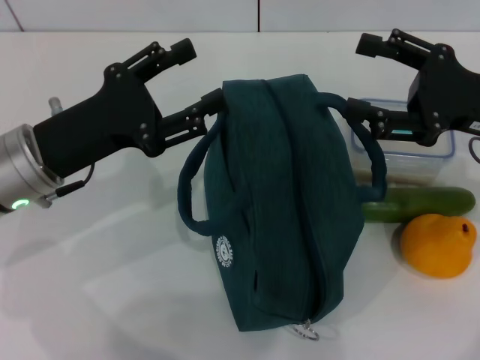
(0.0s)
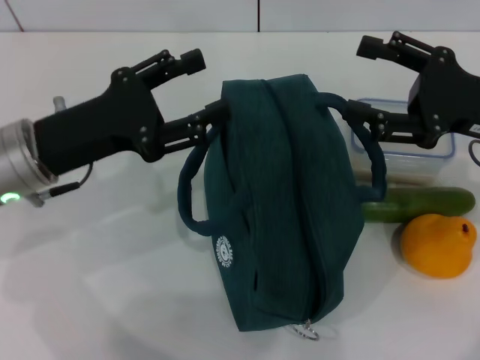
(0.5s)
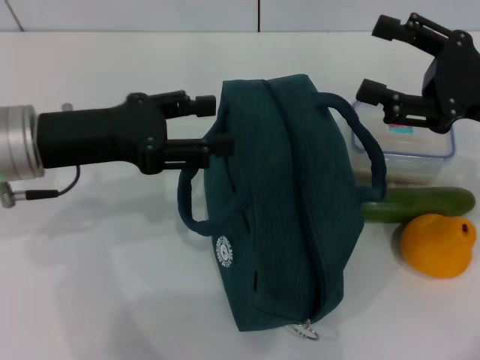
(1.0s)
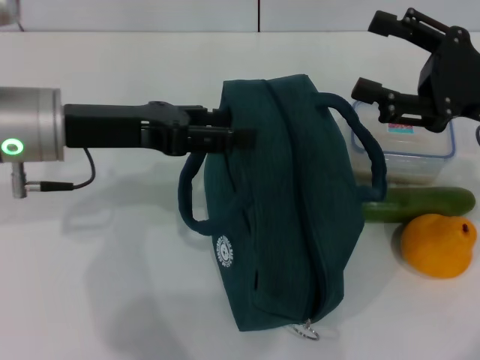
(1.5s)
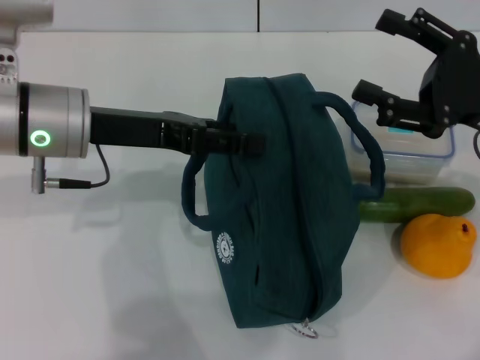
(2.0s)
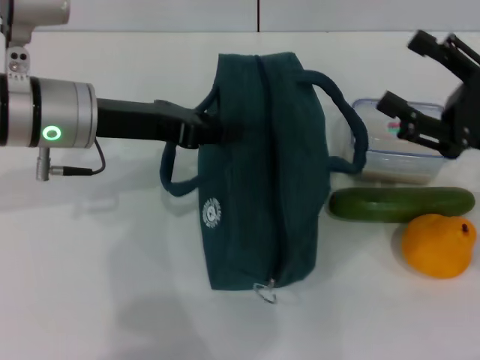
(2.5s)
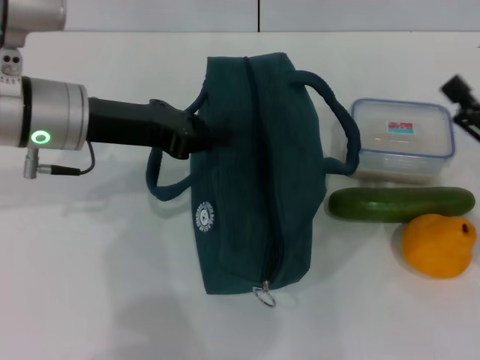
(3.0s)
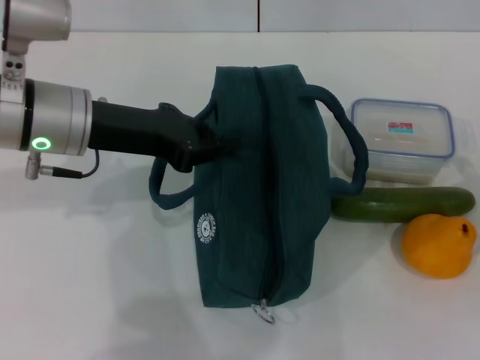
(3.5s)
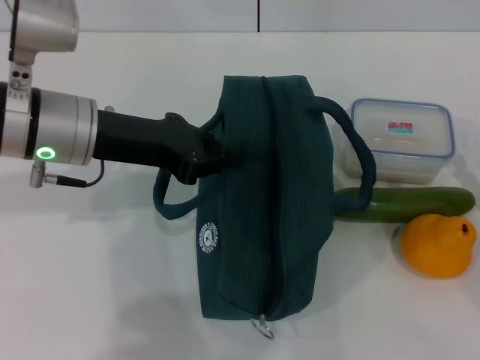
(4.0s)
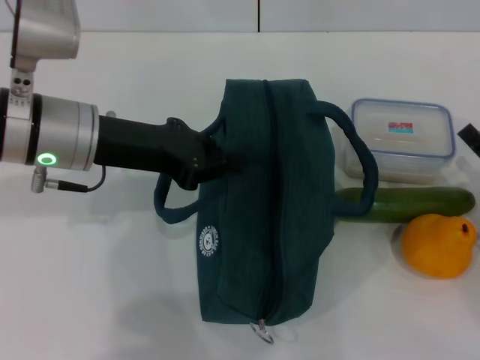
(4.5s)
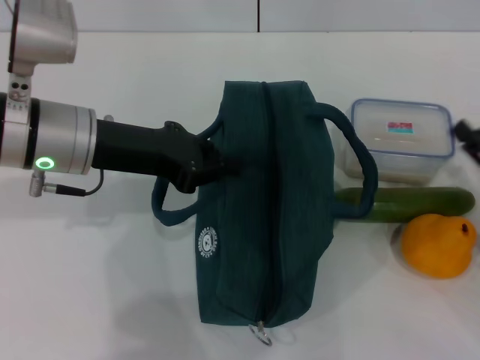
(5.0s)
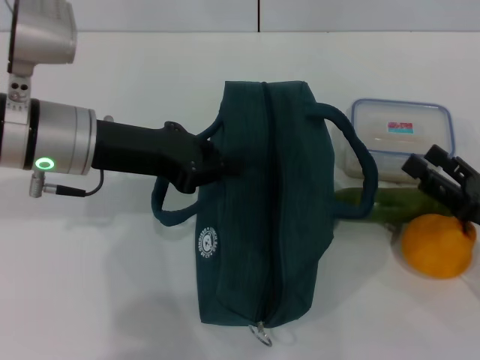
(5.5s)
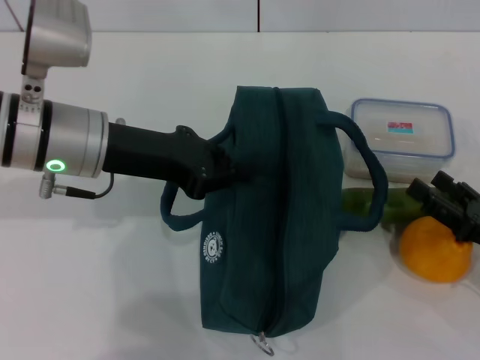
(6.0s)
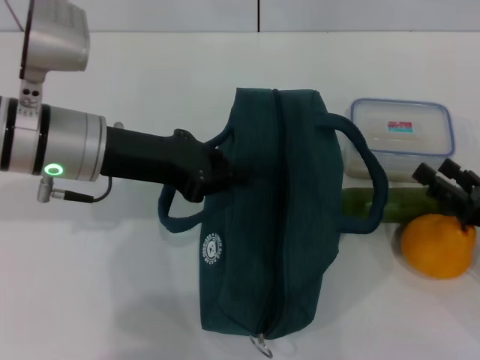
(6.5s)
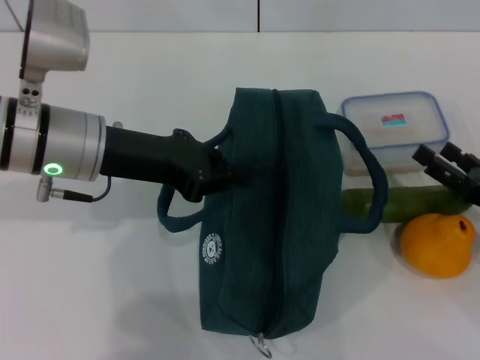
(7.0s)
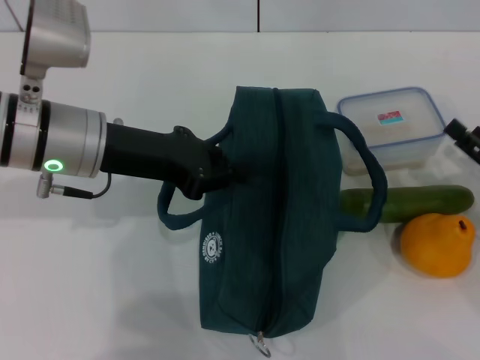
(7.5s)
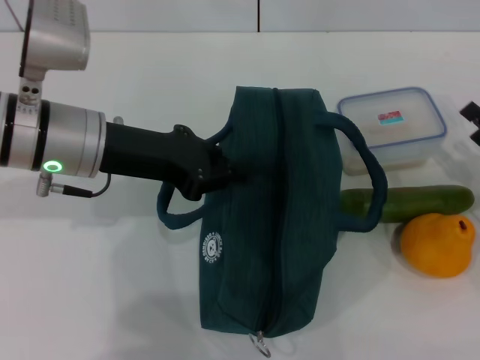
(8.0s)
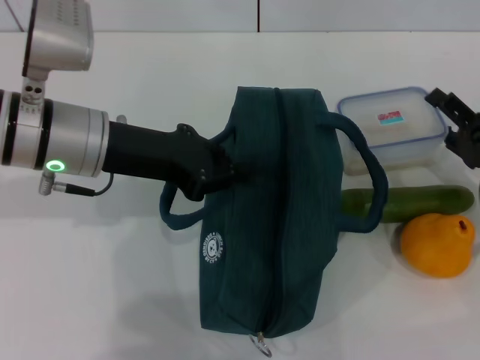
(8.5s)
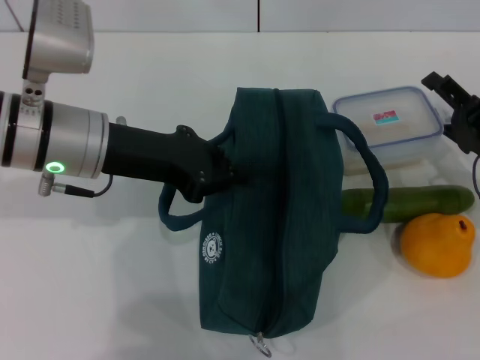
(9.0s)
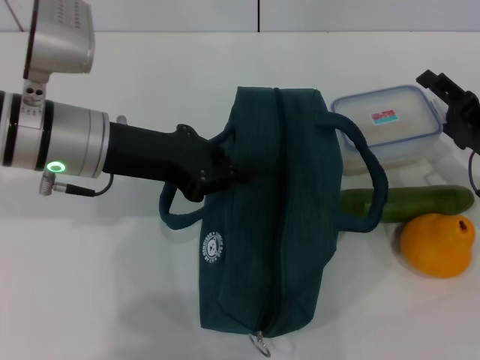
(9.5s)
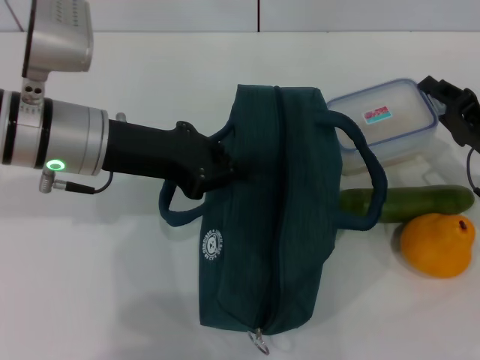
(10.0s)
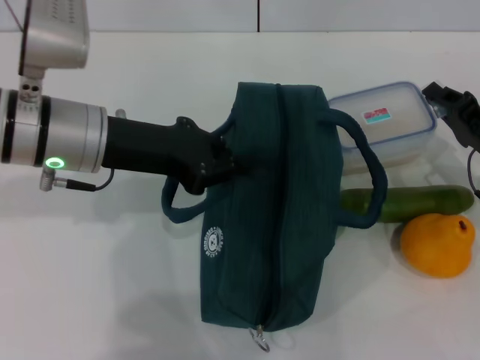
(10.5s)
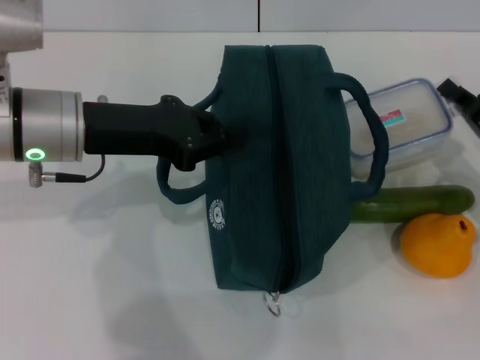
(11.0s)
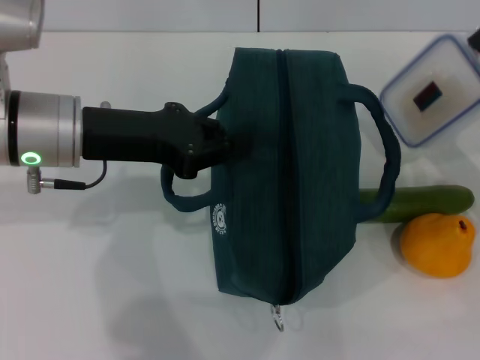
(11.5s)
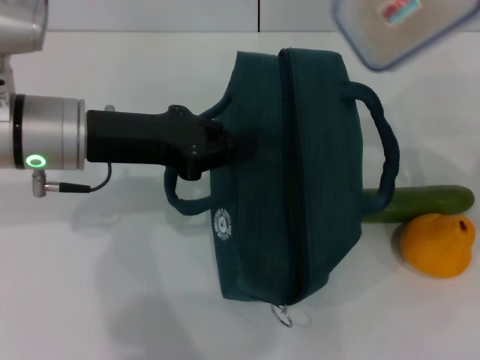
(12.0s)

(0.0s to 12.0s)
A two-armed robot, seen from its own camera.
Step, 0.0s - 2.5s: Hold the lunch bag with your left hand.
Step, 3.0s - 10.5s: Pick up the lunch box with your right hand.
0.0s - 2.0s: The left gripper heads upward, covering roughly 5 cm.
2.0s - 4.0s: The left gripper closes. The right gripper goes approximately 15 cm downward, backward and to the right.
6.0s - 8.0s: The right gripper is displaced forward by roughly 5 cm.
8.0s - 10.0s: The right gripper changes place by about 5 cm, and closes up.
10.0s - 12.0s: The right gripper travels upward by about 10 cm, and closes.

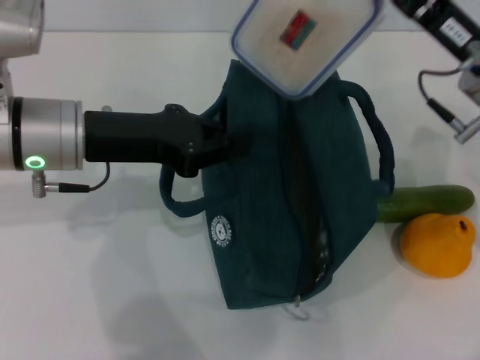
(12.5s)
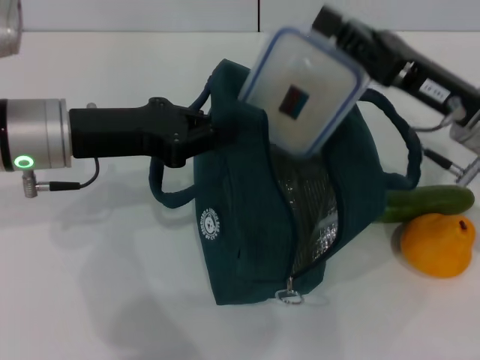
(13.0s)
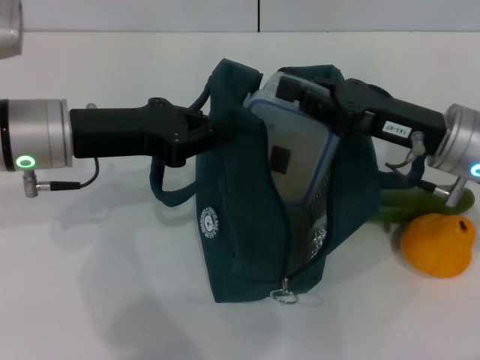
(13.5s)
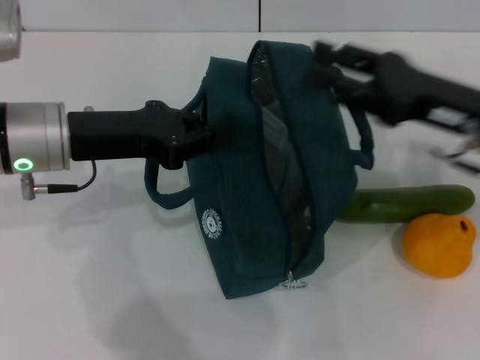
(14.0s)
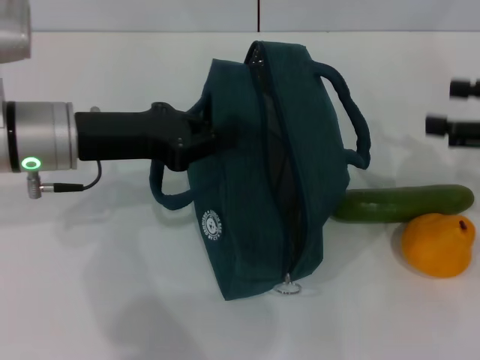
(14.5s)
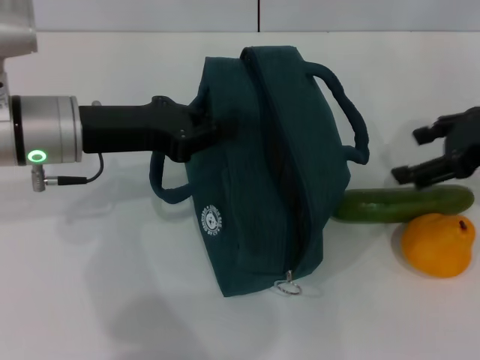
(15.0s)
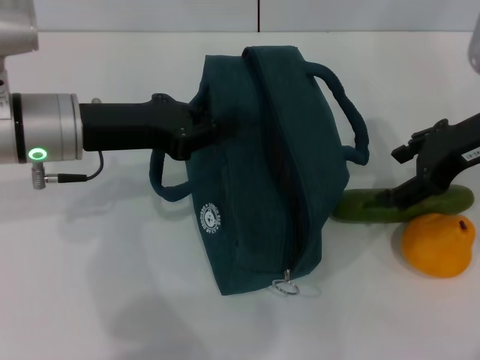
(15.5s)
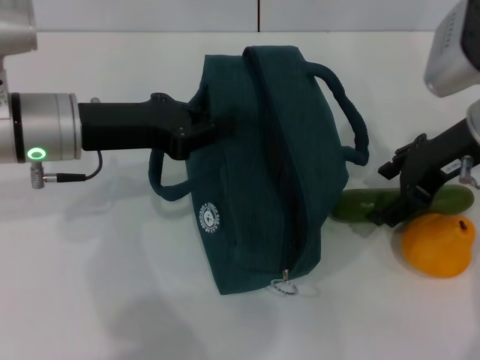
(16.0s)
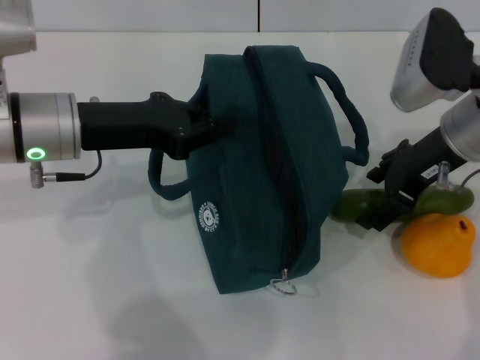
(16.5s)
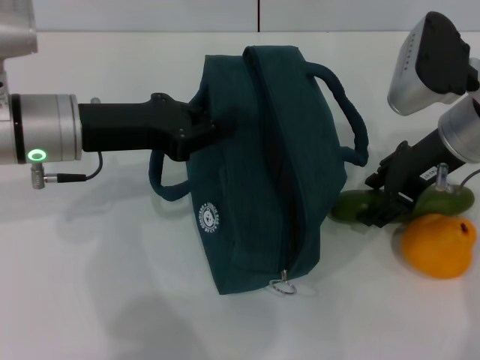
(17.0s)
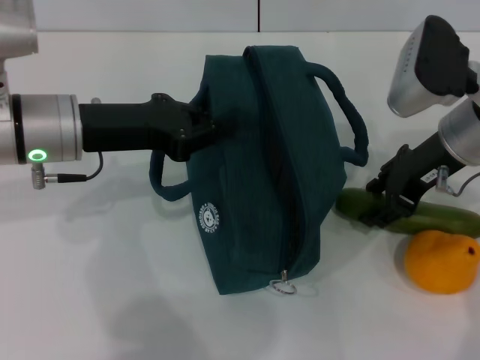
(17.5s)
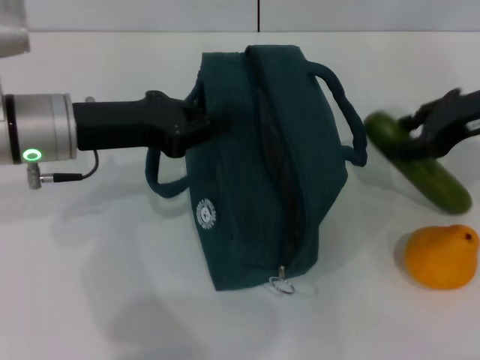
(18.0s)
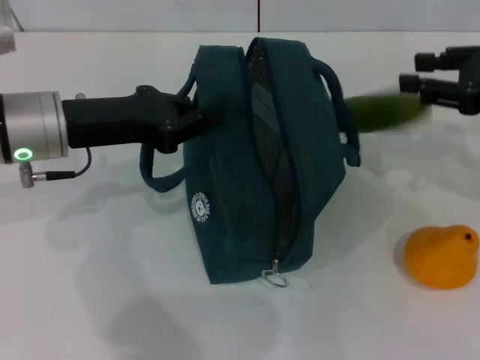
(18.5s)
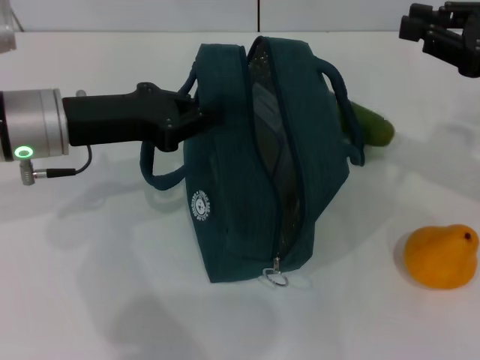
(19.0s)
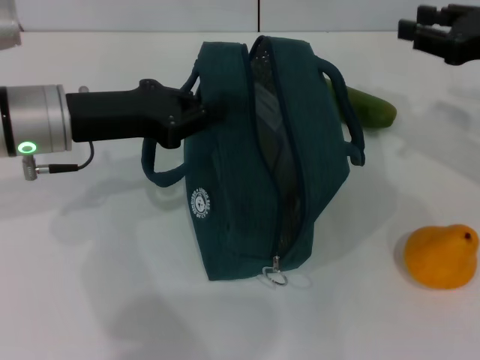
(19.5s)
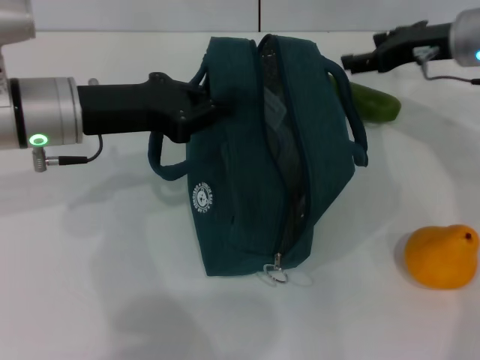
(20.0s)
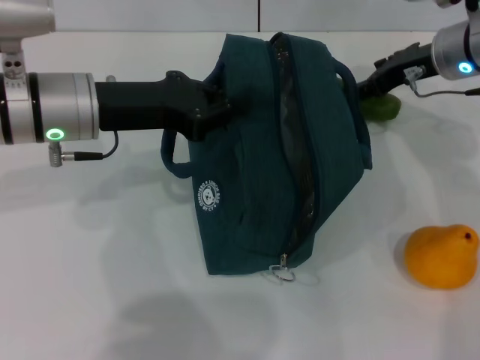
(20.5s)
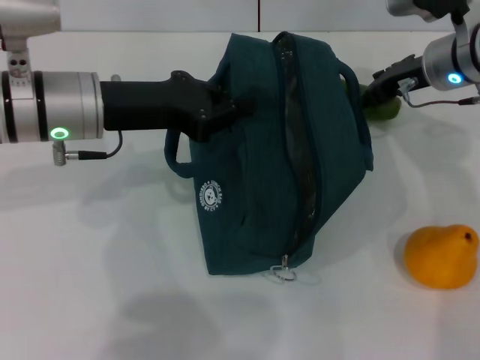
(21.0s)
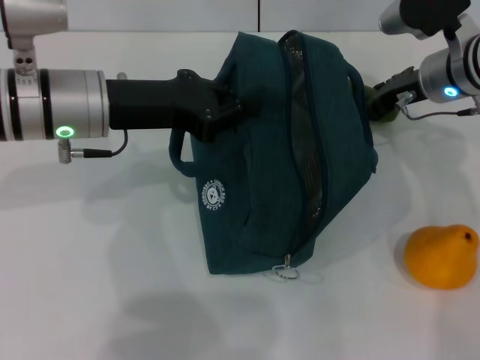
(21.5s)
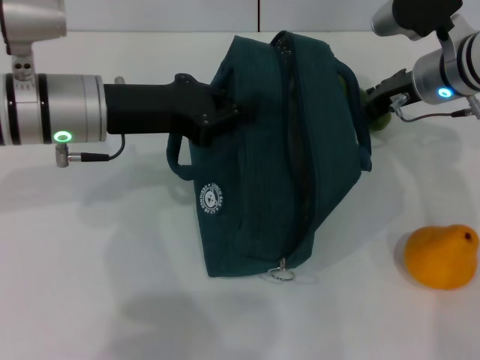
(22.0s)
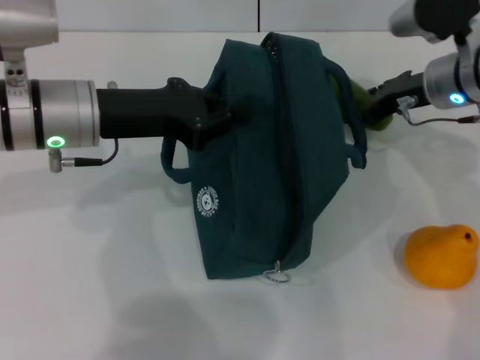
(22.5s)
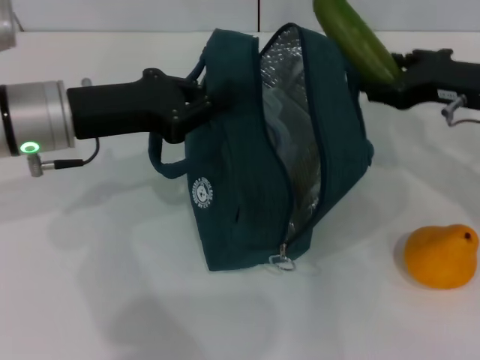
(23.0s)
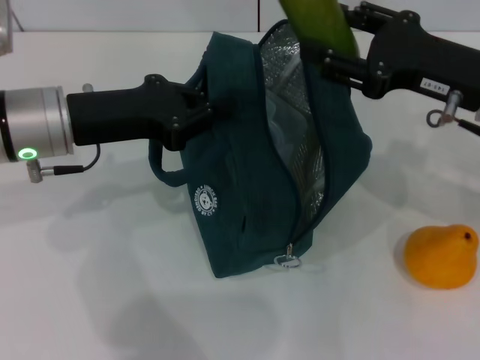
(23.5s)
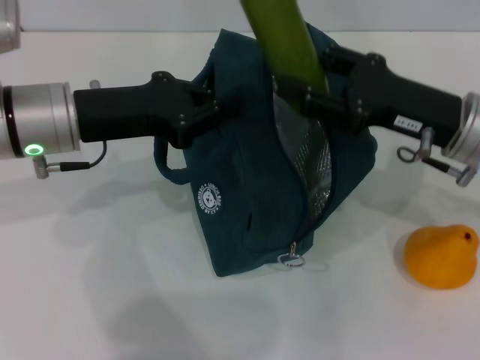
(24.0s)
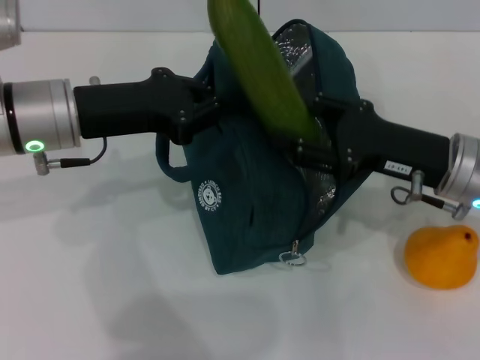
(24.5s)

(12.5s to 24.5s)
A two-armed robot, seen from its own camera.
Step, 14.5s - 22.0s: Pick up the cucumber with your right hand.
12.5s - 14.5s: The right gripper travels to the right by some 15 cm, and opens up.
14.5s - 16.5s: The right gripper goes some 15 cm to the left and forward.
16.5s - 18.5s: The right gripper is displaced to the right by about 10 cm, and closes.
18.5s - 20.5s: The right gripper moves forward and to the left, approximately 15 cm.
20.5s - 22.5s: The grippers move only a little.
22.5s - 24.5s: The right gripper heads backward, covering about 10 cm.

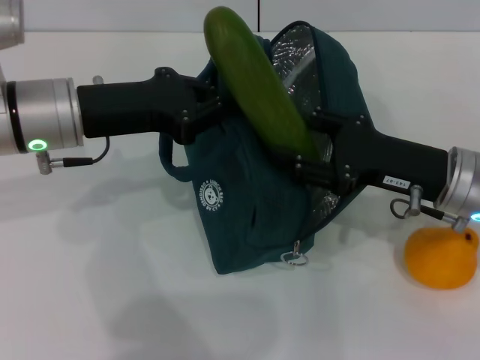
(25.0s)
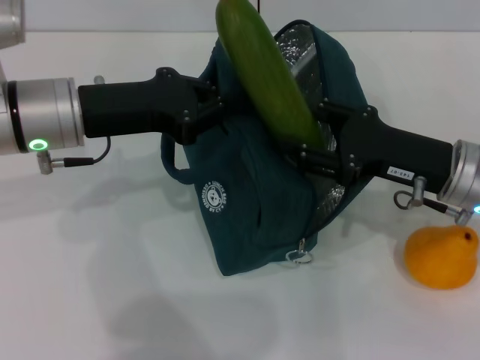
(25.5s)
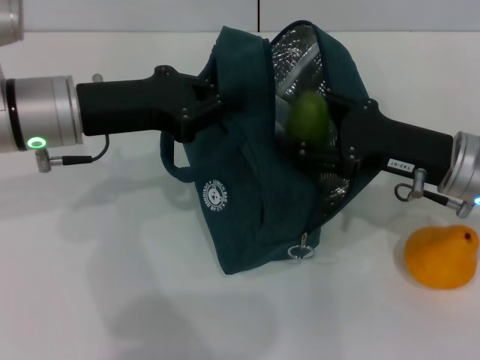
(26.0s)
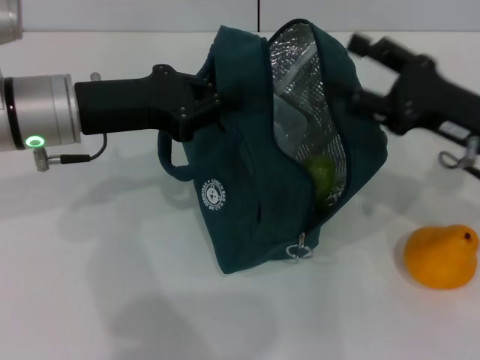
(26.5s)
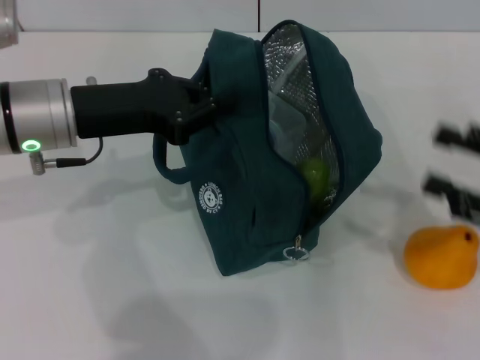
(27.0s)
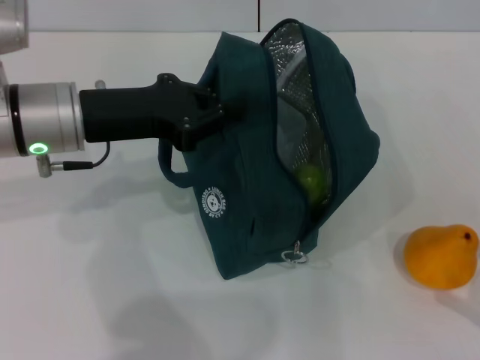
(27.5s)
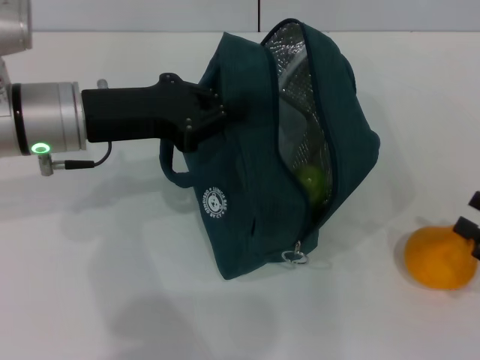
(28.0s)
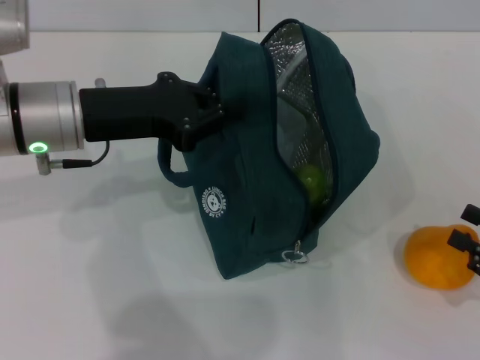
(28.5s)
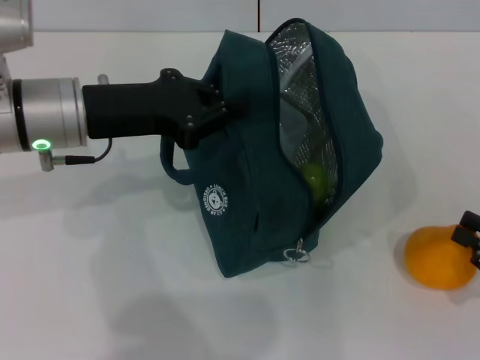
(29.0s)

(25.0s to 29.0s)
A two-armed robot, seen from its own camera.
25.0s - 27.0s: The right gripper heads to the right and backward, covering approximately 15 cm.
27.0s - 29.0s: The right gripper is displaced downward and backward by roughly 10 cm, and closes up.
